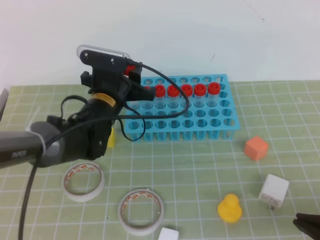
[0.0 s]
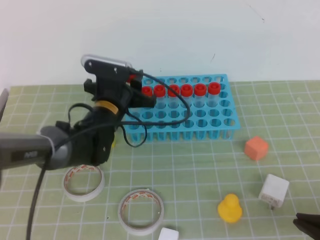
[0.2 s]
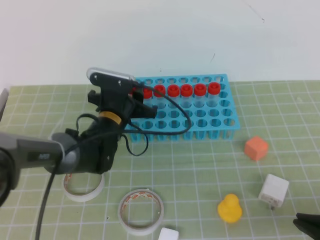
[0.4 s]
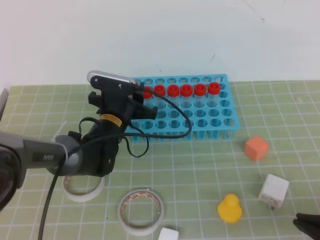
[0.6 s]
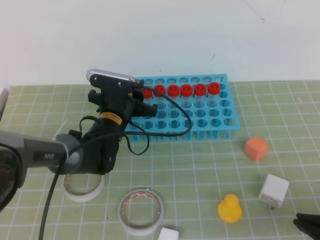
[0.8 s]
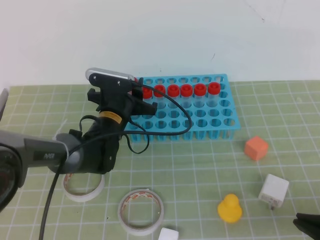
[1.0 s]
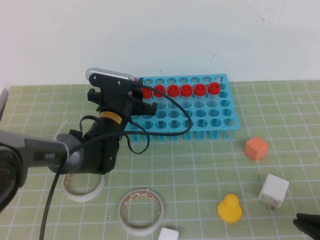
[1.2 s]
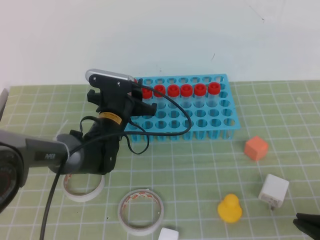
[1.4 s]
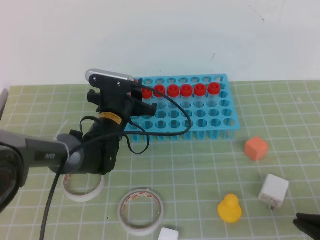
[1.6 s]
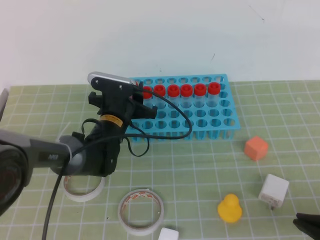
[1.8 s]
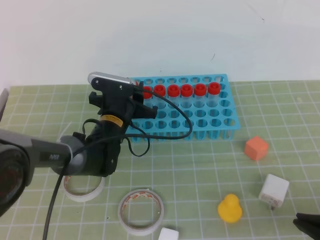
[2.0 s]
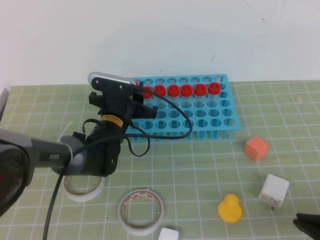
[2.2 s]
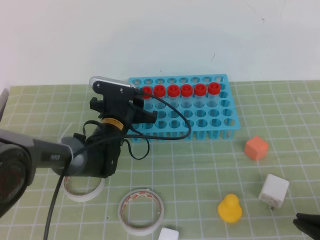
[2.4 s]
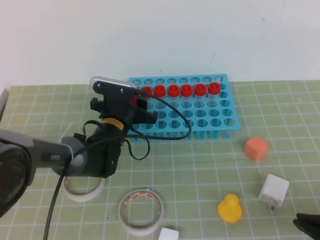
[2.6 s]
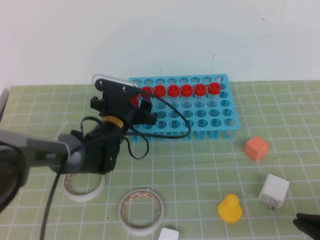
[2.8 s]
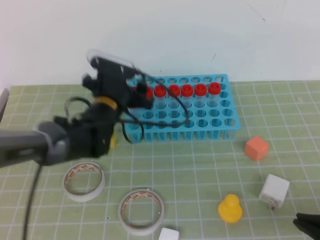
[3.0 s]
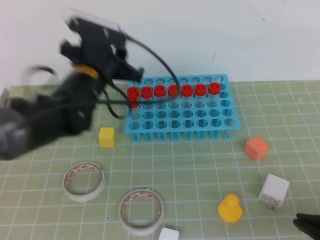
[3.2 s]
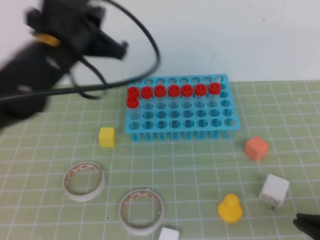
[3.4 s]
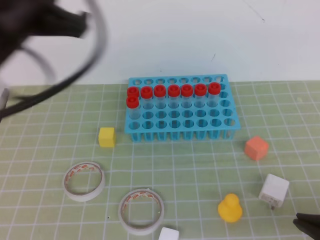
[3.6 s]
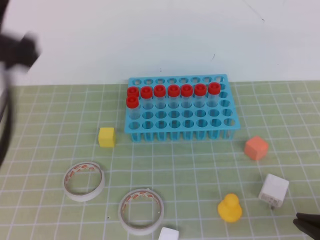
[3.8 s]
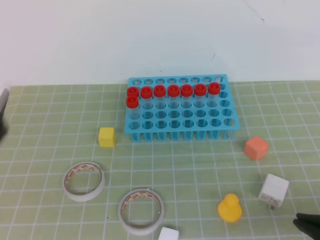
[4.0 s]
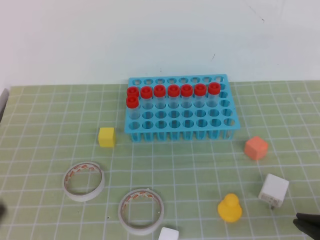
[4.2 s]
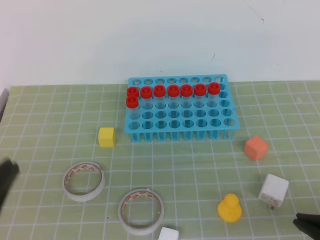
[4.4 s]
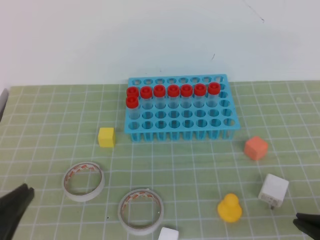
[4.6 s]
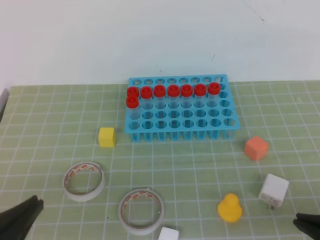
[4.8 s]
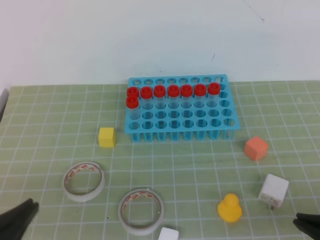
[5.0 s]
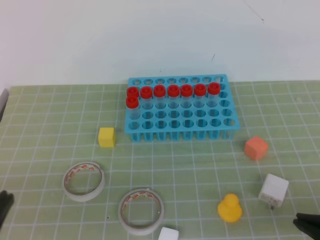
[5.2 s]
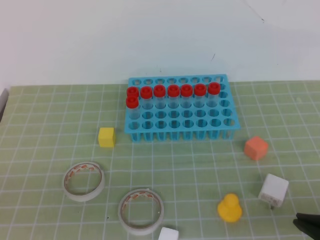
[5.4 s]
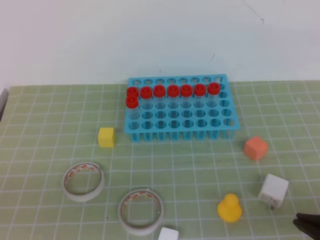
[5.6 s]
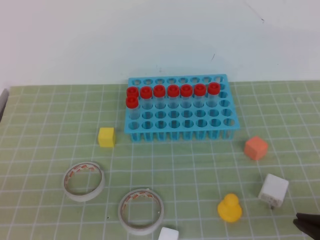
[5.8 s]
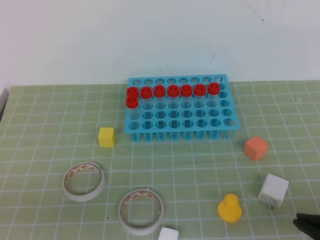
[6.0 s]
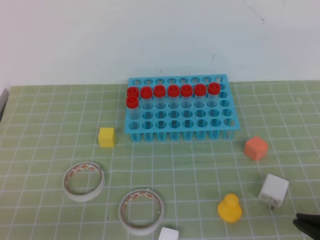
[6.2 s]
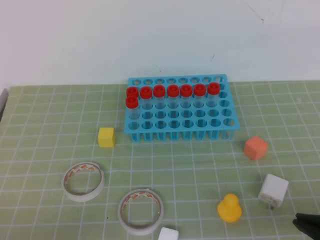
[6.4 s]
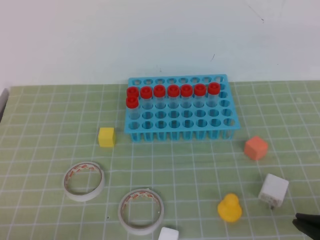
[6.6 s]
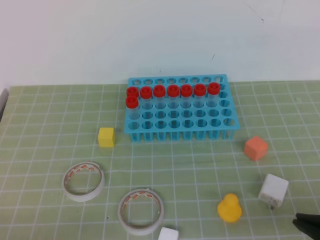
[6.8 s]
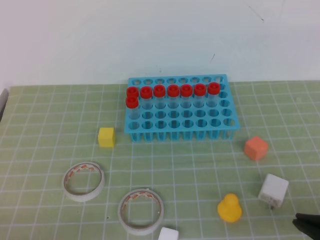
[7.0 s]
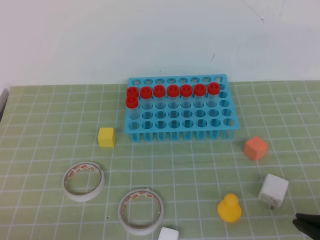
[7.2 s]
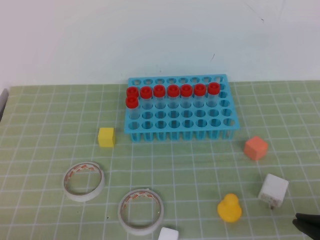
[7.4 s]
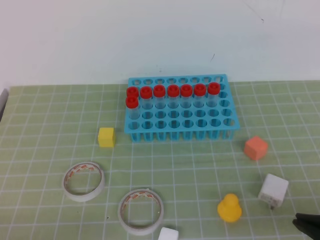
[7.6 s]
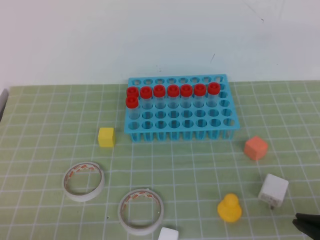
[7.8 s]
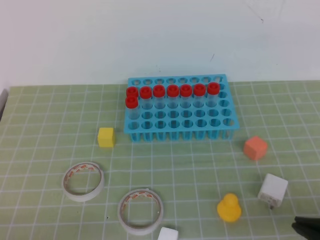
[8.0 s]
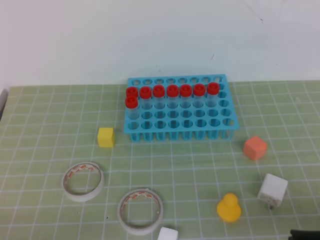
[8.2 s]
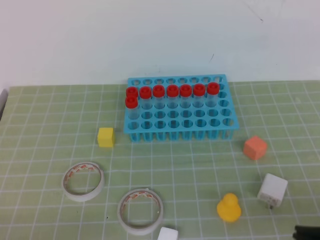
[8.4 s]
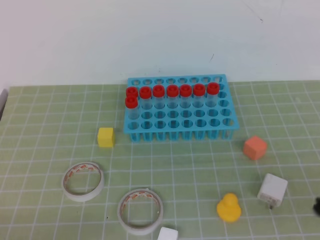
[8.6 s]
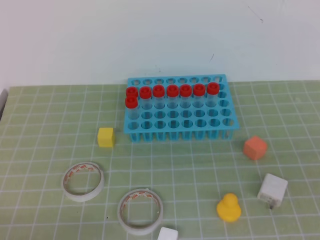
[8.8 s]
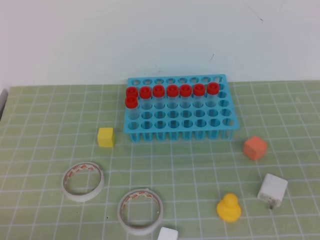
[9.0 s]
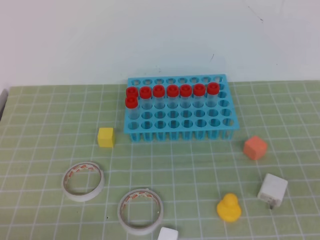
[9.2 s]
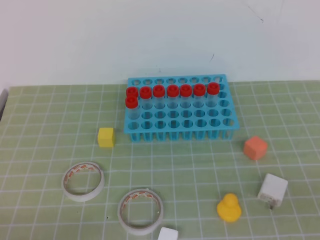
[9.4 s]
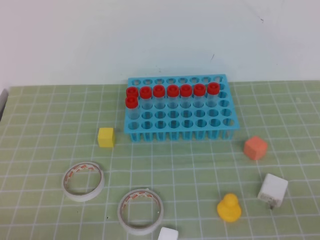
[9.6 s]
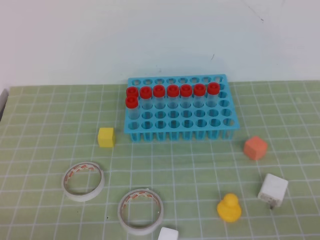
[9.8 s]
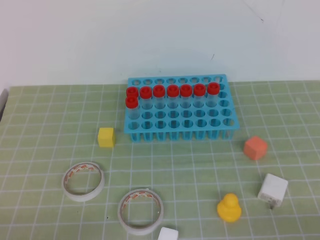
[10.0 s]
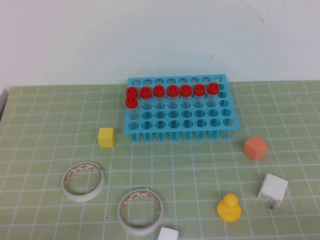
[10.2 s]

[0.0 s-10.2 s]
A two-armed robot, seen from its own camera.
0.0 to 1.4 s: The left gripper travels downward by some 5 cm.
1.4 to 3.0 s: The grippers move only a little.
3.0 to 4.4 s: The left gripper heads backward, covering roughly 35 cm, and closes up.
4.4 to 5.8 s: The left gripper goes about 5 cm downward.
7.2 to 8.8 s: The right gripper heads to the right, covering about 5 cm.

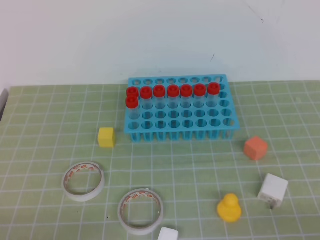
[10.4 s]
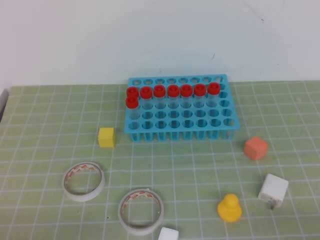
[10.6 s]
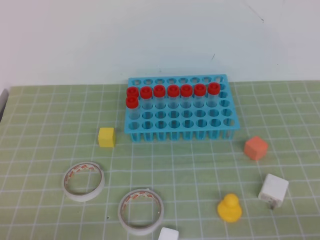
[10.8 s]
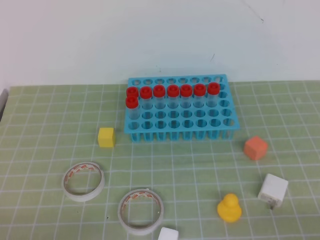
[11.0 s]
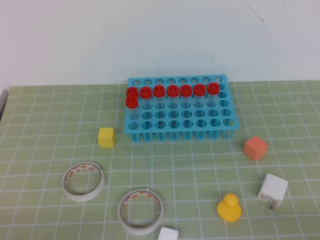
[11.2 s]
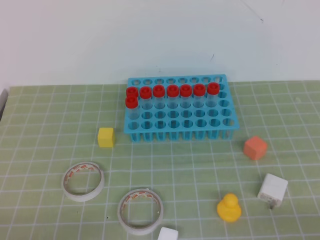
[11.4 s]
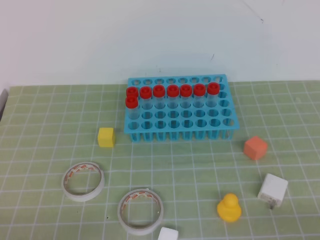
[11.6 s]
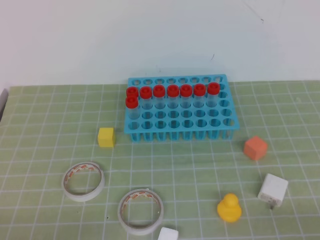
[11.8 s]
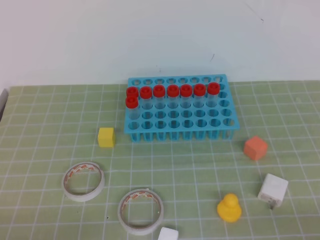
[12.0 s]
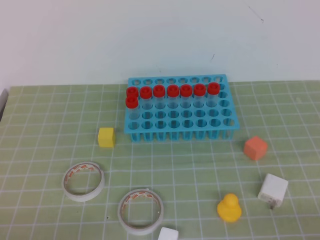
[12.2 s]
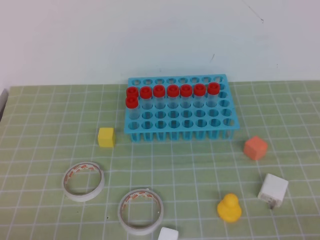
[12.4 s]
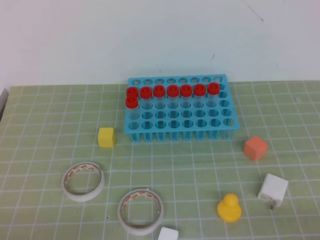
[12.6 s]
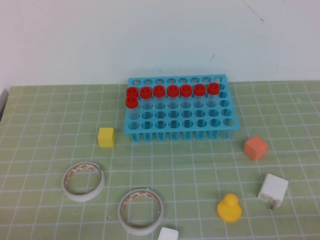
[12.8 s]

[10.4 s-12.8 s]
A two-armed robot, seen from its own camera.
10.4 to 12.8 s: Neither gripper changes place.

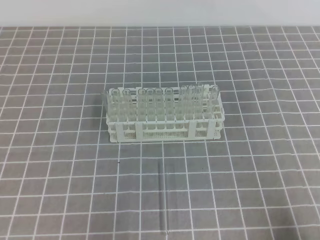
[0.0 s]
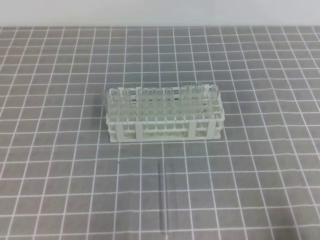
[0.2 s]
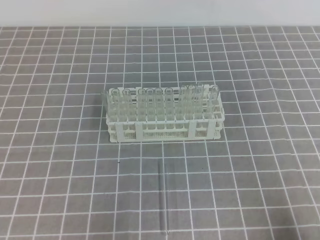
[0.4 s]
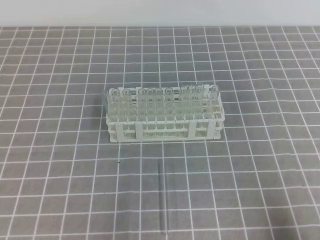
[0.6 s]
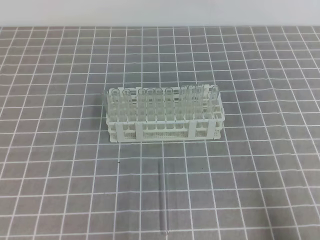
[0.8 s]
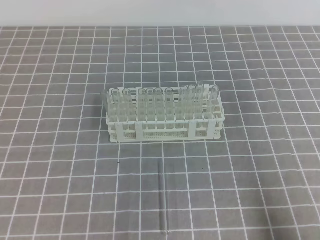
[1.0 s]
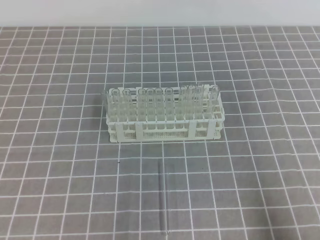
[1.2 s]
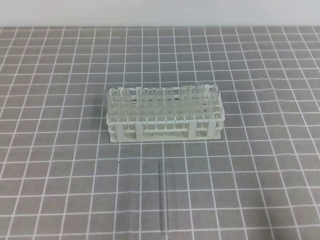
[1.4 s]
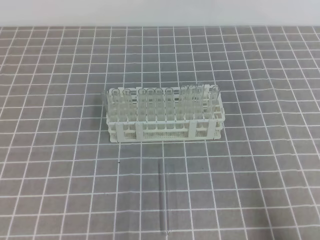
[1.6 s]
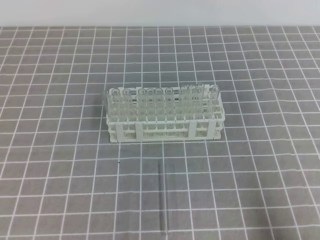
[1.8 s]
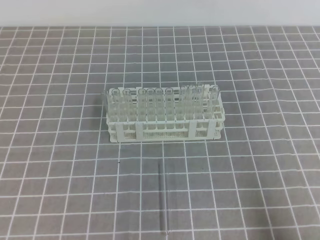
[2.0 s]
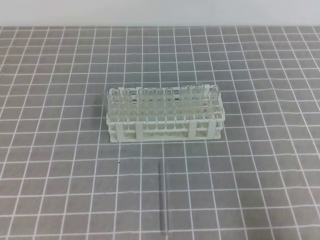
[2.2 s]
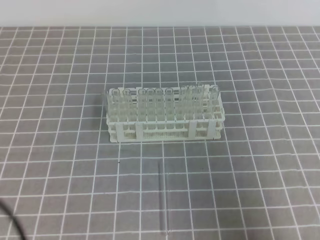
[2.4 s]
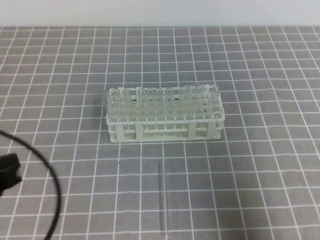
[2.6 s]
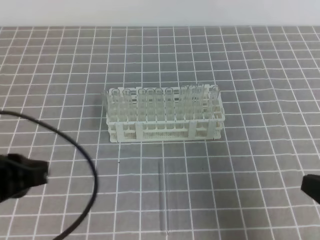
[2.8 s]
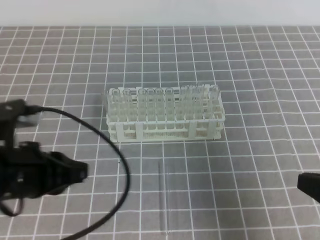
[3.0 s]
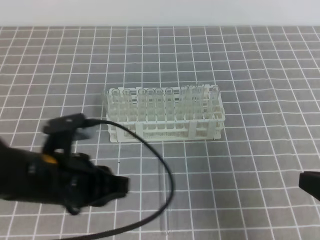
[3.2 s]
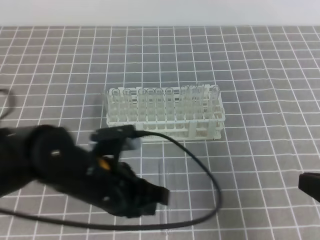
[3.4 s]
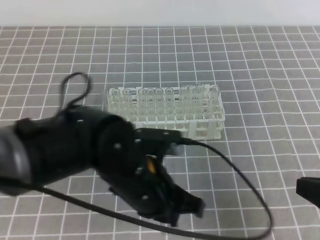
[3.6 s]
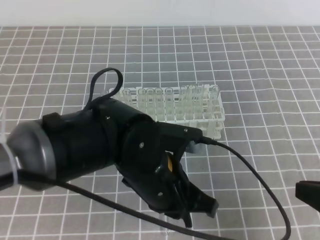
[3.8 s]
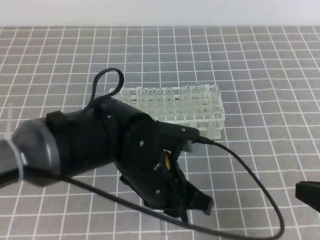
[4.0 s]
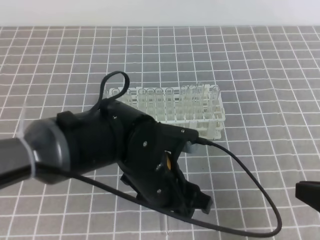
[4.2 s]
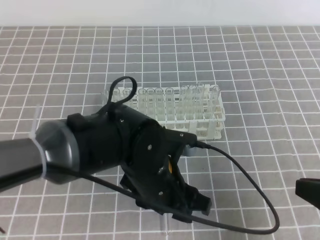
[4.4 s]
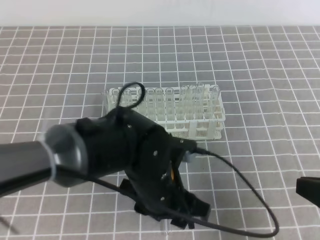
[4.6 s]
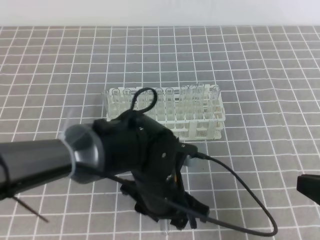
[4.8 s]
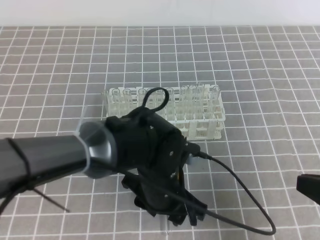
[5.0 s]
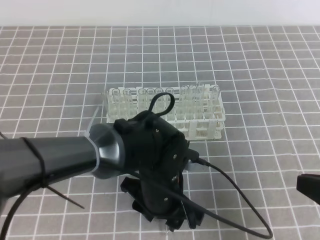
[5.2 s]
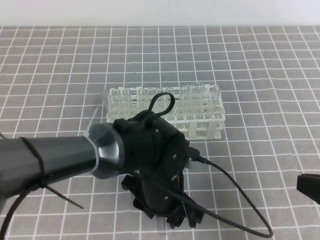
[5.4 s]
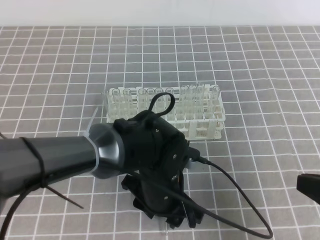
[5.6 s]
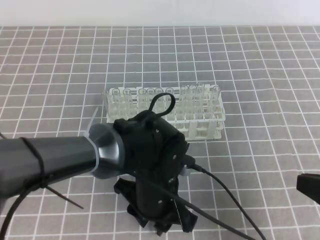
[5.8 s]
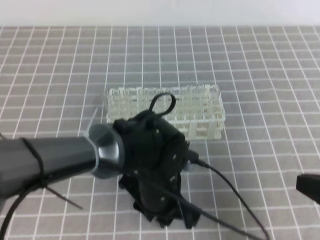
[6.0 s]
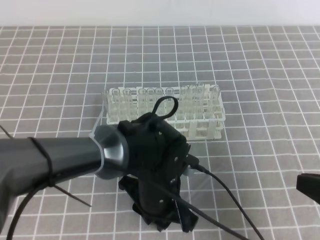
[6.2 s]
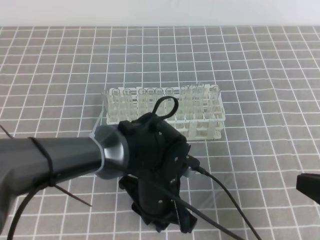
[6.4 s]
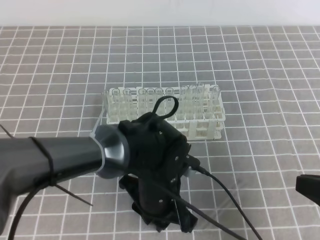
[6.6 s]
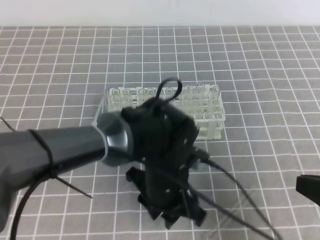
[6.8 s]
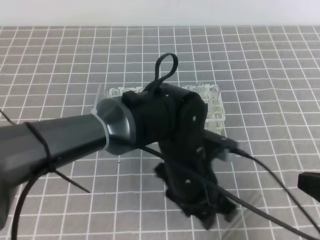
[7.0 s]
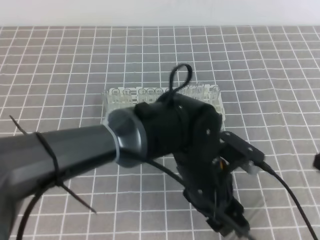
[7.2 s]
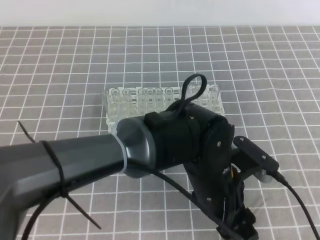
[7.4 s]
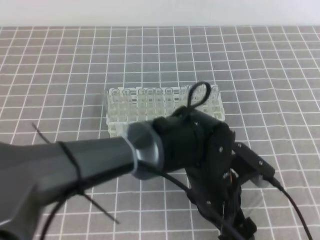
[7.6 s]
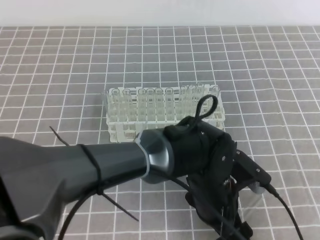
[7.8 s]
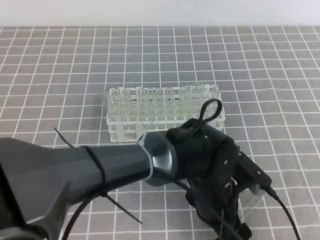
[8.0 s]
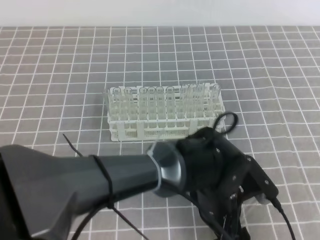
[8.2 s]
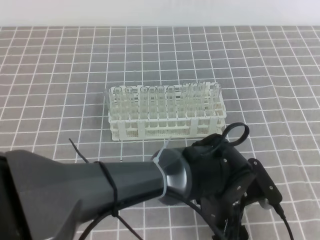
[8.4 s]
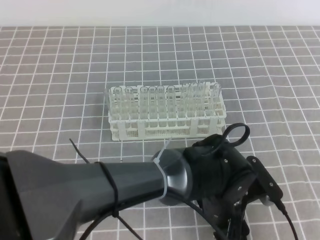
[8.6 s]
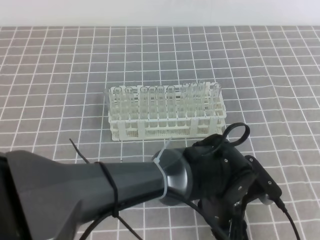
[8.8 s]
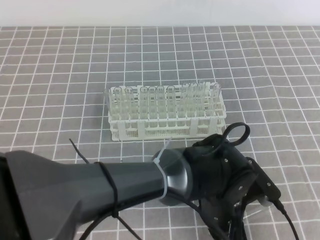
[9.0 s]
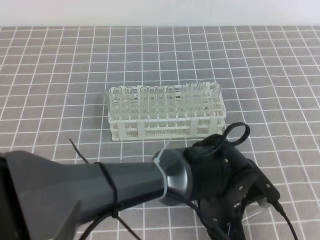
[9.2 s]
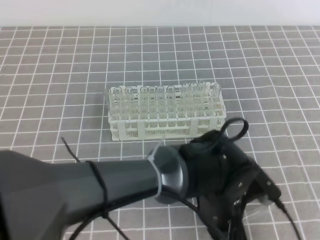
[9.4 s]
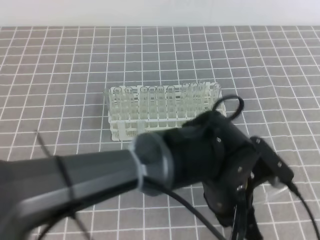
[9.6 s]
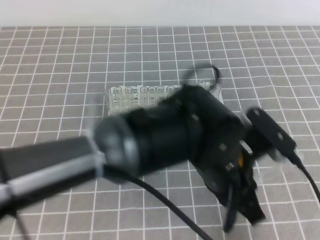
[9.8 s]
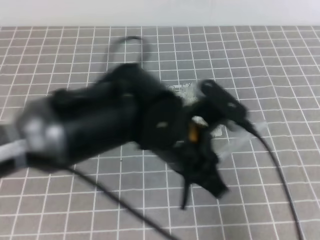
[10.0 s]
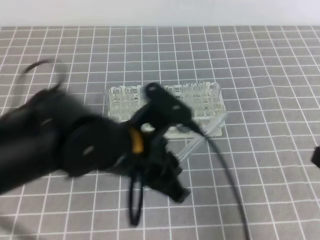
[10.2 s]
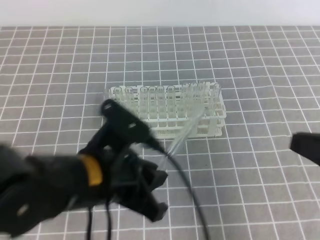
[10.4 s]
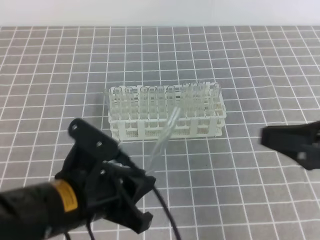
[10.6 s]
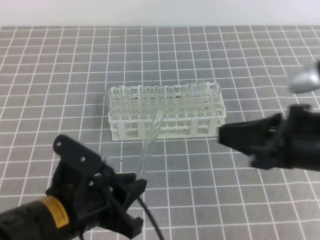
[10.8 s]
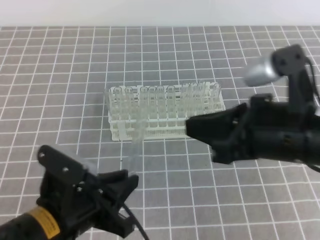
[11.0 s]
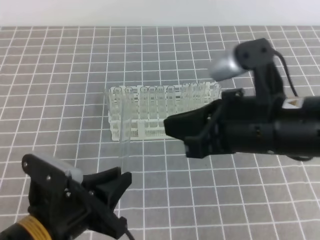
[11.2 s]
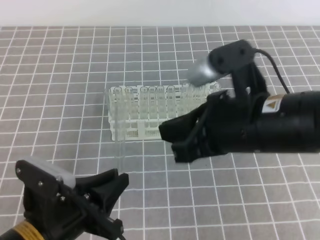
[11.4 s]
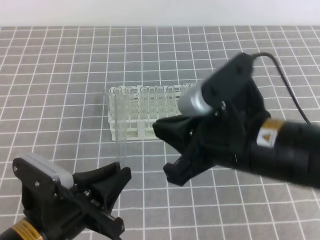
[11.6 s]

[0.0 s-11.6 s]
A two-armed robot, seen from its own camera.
1.4 to 2.8 s: The left gripper travels forward and upward by approximately 15 cm; the right gripper goes about 5 cm upward.
2.8 to 4.4 s: The left gripper shifts approximately 20 cm to the right, and opens its fingers.
4.4 to 5.8 s: The grippers make only small movements.
5.8 to 7.2 s: The left gripper goes approximately 5 cm to the right.
7.2 to 8.8 s: The left gripper is displaced downward by some 5 cm, and opens, then closes again.
8.8 to 10.2 s: The left gripper goes some 15 cm to the left and upward.
10.2 to 11.6 s: The right gripper moves to the left and forward, approximately 20 cm; the left gripper shifts about 15 cm to the left, downward and backward.
